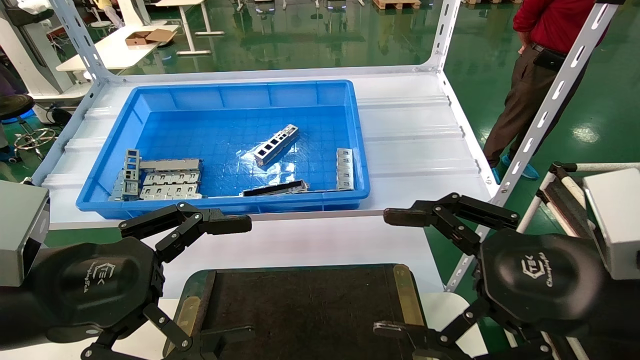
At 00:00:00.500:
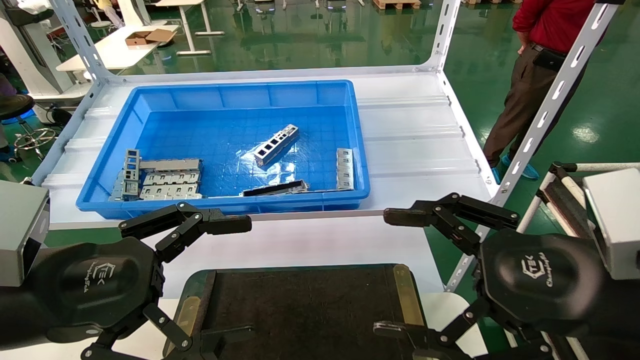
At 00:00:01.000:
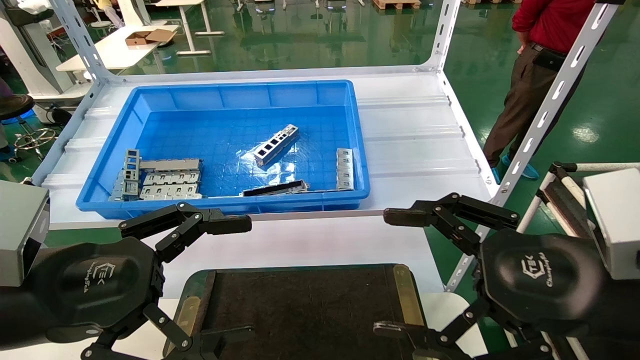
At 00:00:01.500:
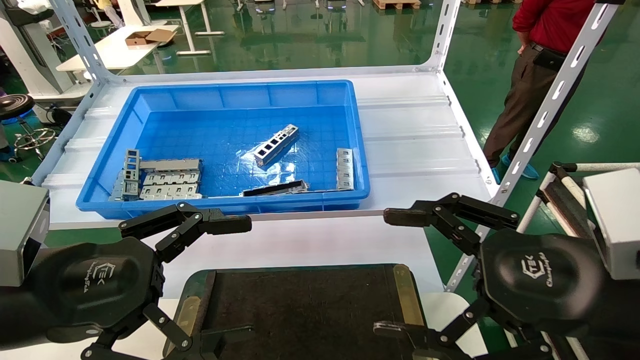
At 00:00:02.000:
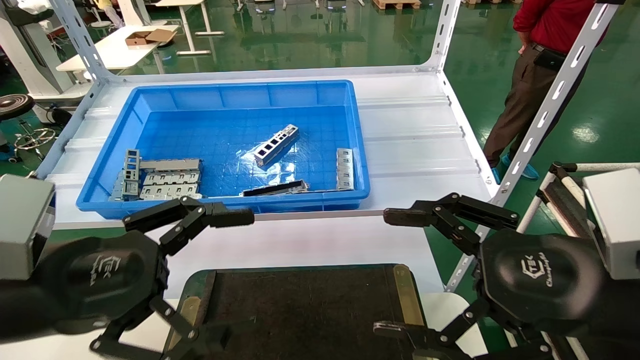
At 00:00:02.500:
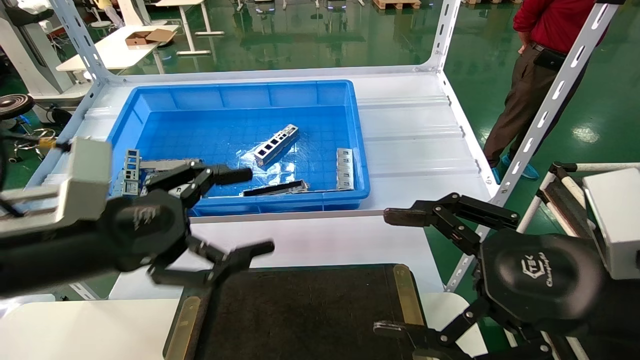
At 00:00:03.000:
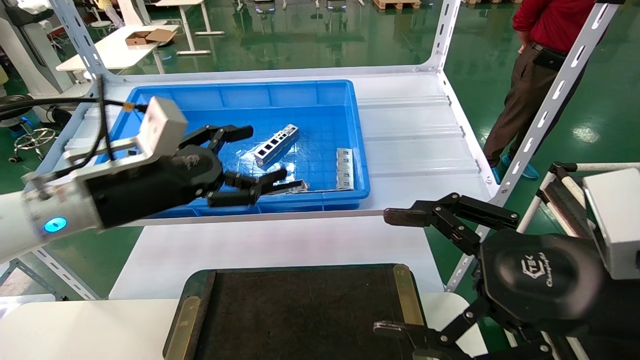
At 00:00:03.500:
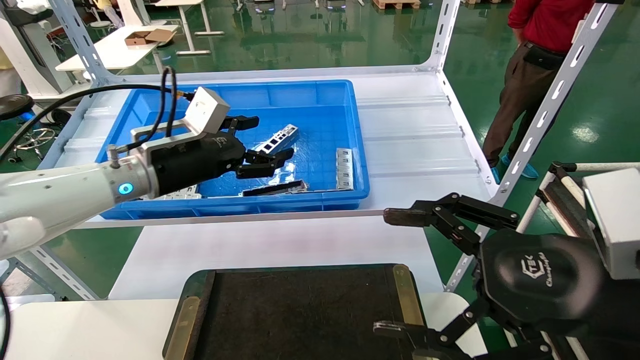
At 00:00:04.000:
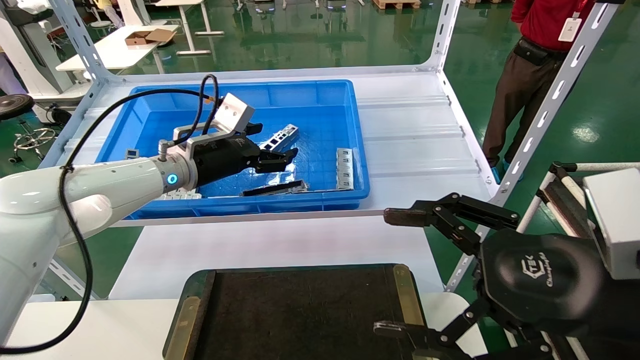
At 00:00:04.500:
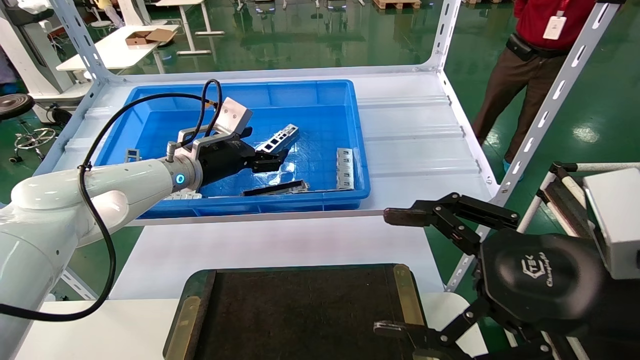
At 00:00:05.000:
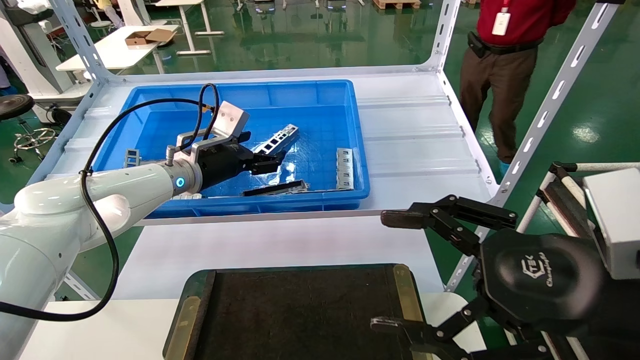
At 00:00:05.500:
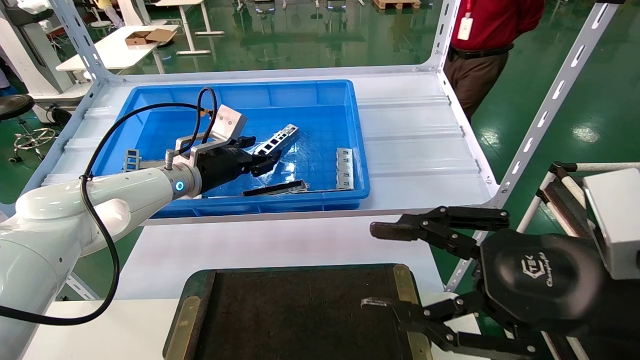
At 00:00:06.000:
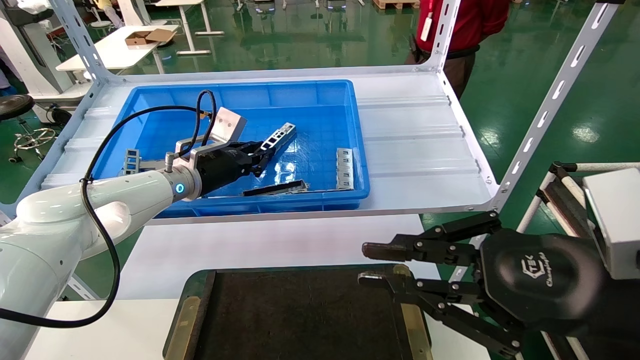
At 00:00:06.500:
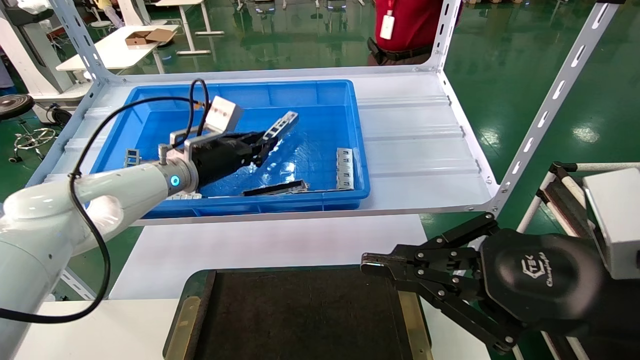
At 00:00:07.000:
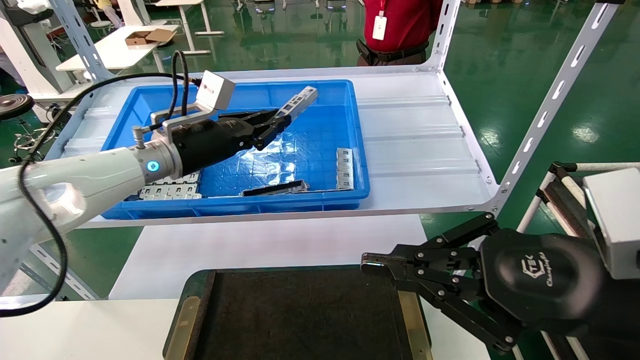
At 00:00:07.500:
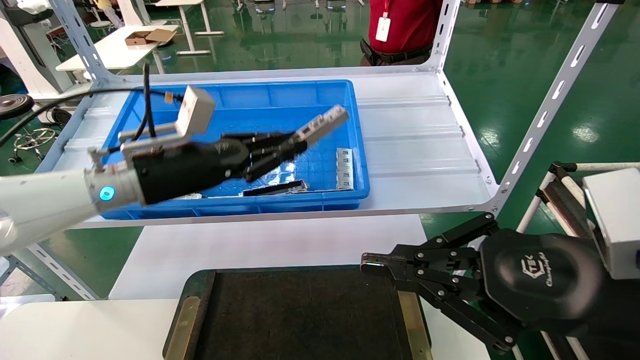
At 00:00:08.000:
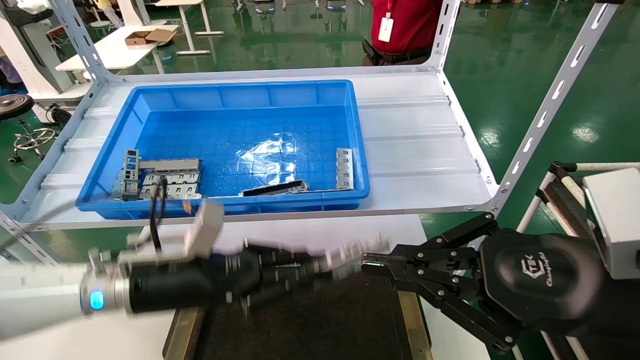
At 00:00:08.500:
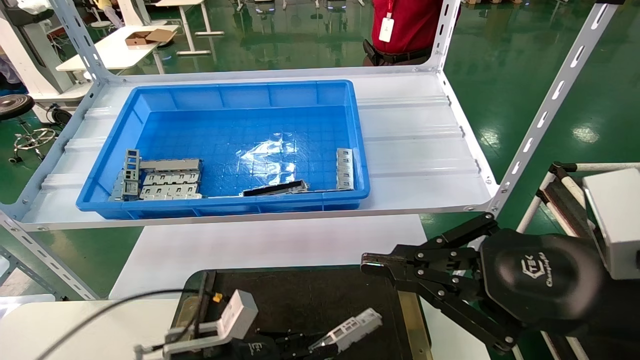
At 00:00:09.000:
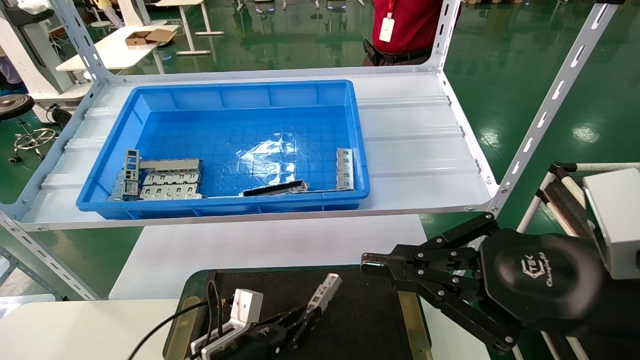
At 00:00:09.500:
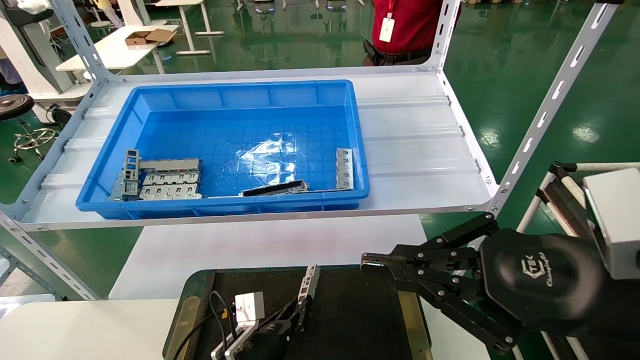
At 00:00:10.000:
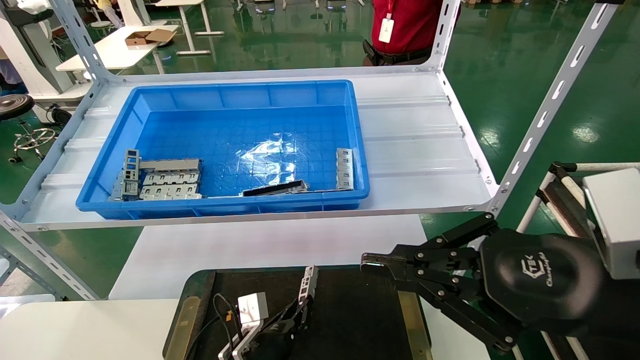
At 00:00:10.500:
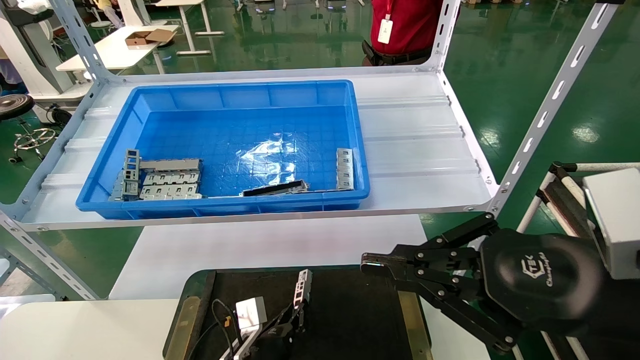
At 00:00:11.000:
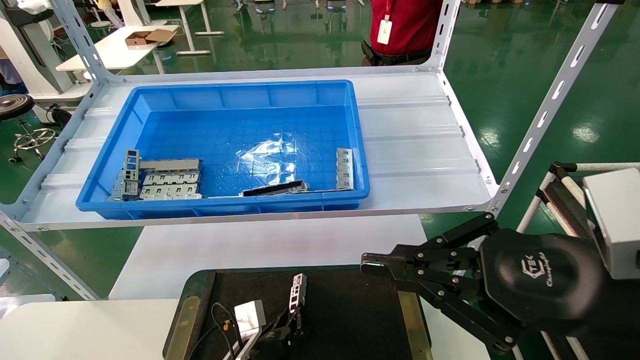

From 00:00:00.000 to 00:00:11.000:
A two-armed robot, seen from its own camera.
Task of the whole recording: Grasp the part with one hand and place it on the black container.
Step, from 00:00:02.500 to 00:00:05.500: Pick up the front USB bracket from the feeding area.
From 00:00:00.000 to 00:00:02.000: The two grippers keep their place.
From 00:00:02.000 to 00:00:03.500: The left gripper shifts some 20 cm forward.
From 00:00:03.500 to 00:00:05.500: The left gripper shifts some 10 cm forward, and closes up.
From 00:00:05.500 to 00:00:07.500: The right gripper closes. The left gripper heads backward, covering some 10 cm, and closes up.
From 00:00:07.500 to 00:00:09.000: The left gripper heads downward, covering some 30 cm.
From 00:00:09.000 to 00:00:11.000: The left gripper is displaced to the right by roughly 5 cm.

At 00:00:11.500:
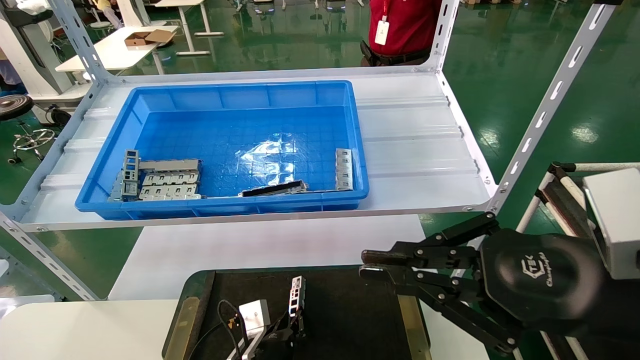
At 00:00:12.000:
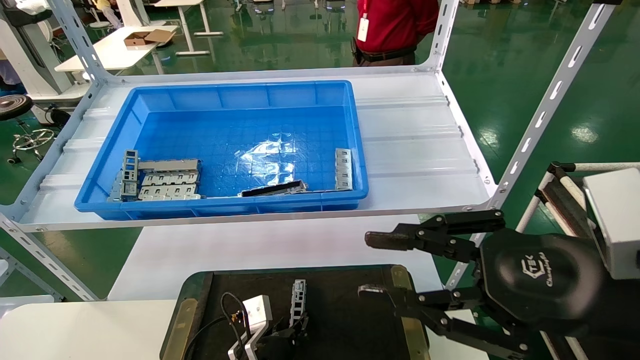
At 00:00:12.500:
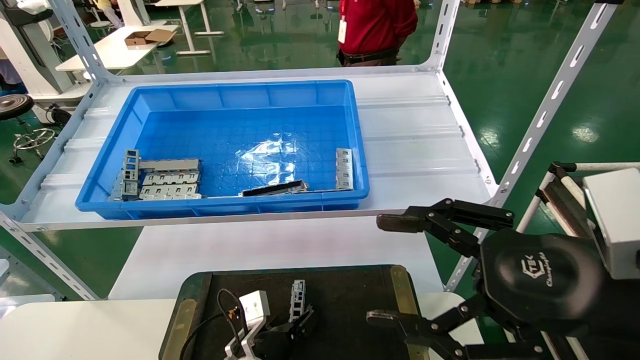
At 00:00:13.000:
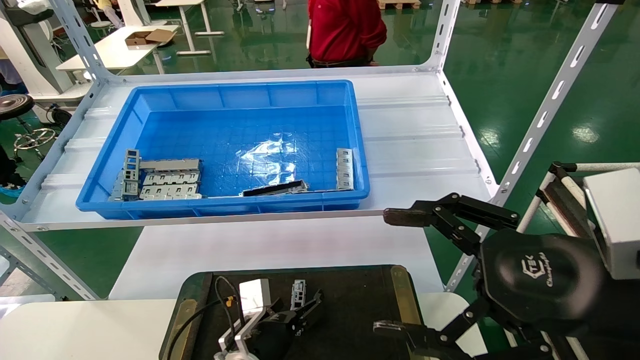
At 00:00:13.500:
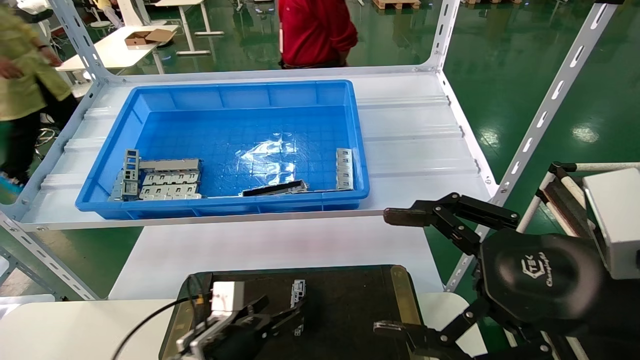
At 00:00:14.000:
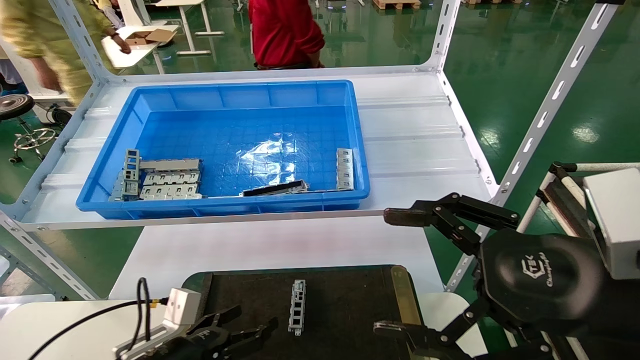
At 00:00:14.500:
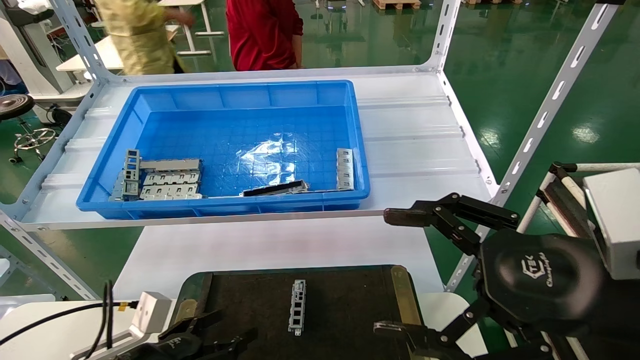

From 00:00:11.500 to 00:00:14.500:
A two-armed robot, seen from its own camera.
Task of the whole recording: Grasp the part with one hand and place it on the black container.
From 00:00:11.500 to 00:00:13.000: The right gripper opens up. Meanwhile the left gripper travels upward by approximately 5 cm, and opens.
From 00:00:13.000 to 00:00:14.500: The left gripper shifts roughly 20 cm to the left and backward.
